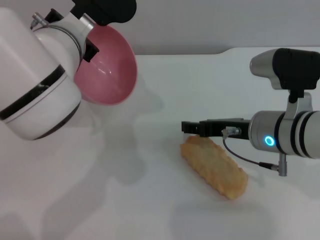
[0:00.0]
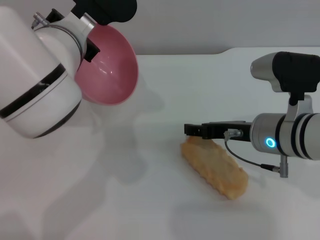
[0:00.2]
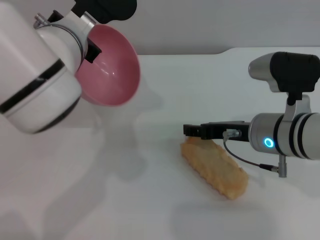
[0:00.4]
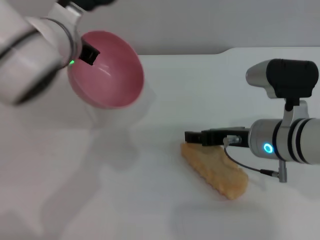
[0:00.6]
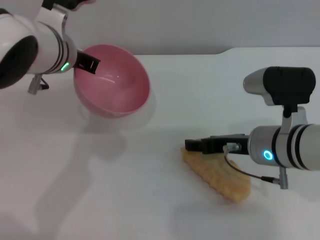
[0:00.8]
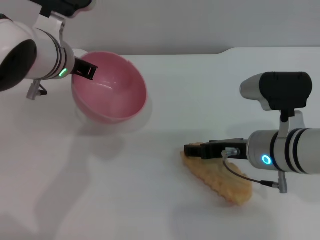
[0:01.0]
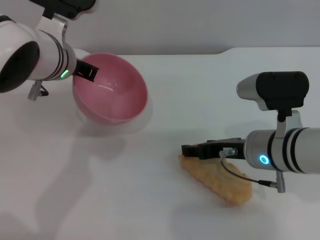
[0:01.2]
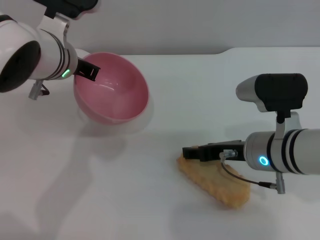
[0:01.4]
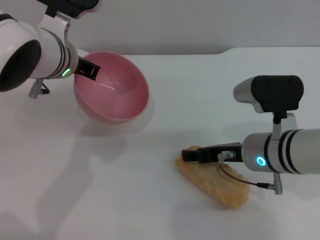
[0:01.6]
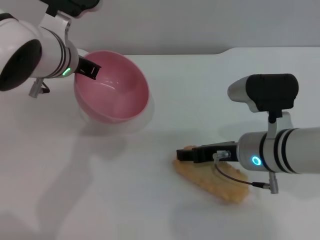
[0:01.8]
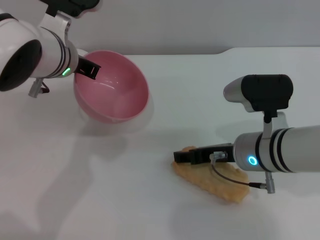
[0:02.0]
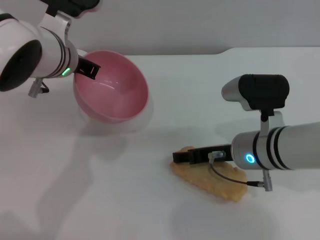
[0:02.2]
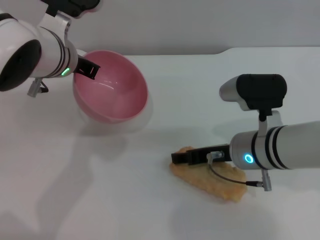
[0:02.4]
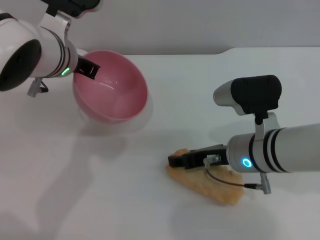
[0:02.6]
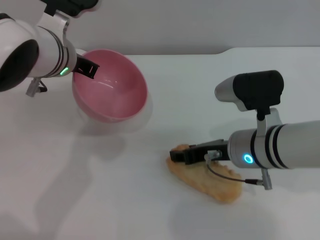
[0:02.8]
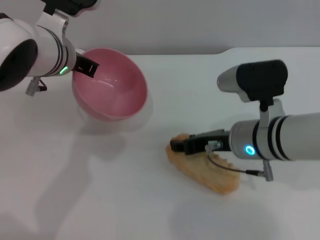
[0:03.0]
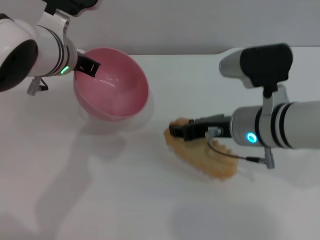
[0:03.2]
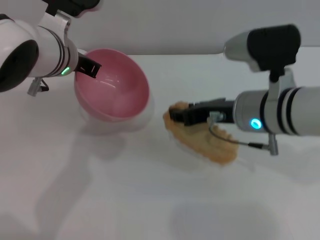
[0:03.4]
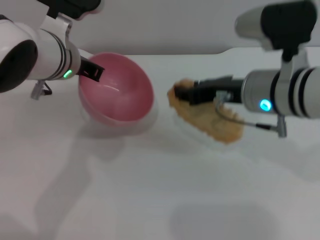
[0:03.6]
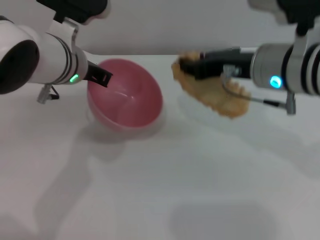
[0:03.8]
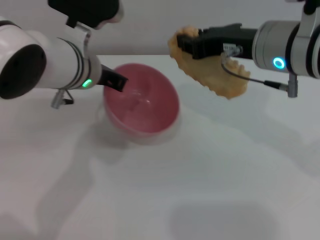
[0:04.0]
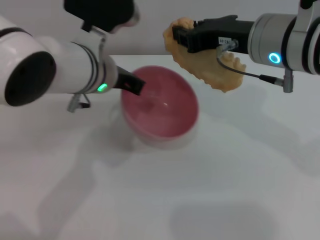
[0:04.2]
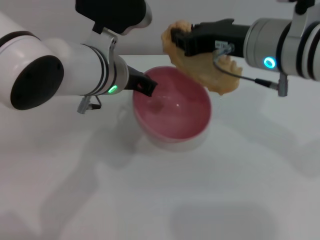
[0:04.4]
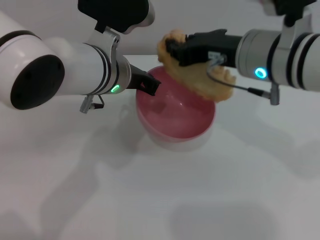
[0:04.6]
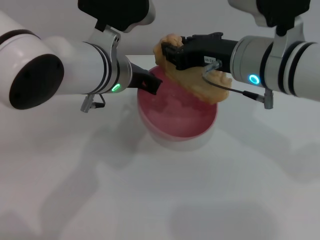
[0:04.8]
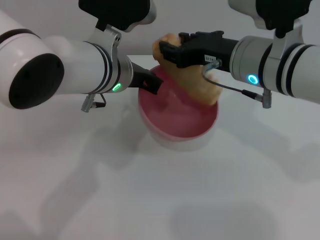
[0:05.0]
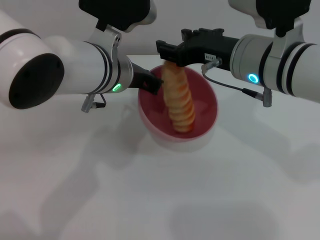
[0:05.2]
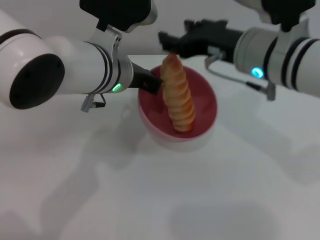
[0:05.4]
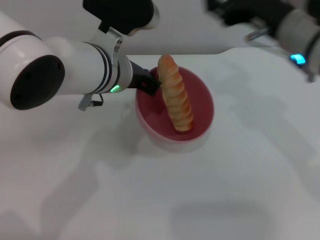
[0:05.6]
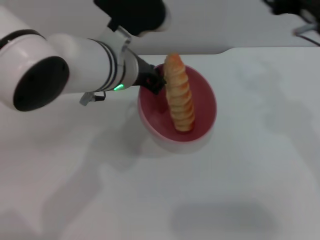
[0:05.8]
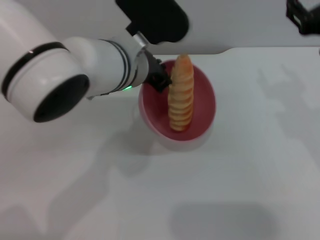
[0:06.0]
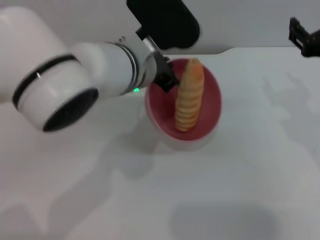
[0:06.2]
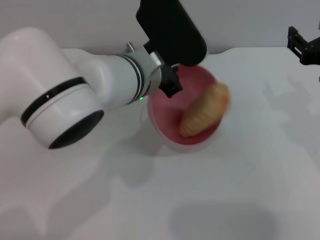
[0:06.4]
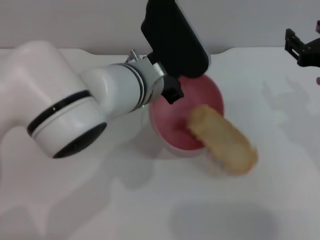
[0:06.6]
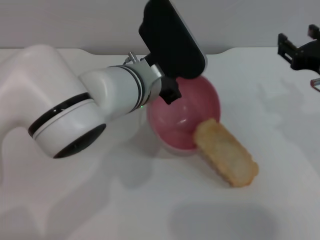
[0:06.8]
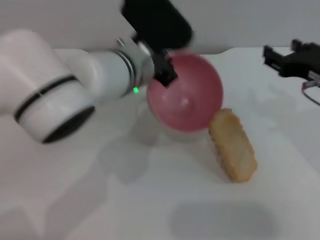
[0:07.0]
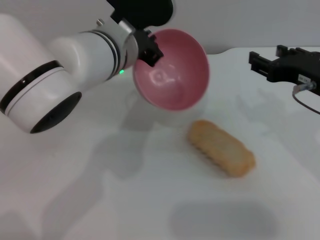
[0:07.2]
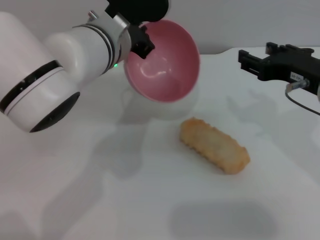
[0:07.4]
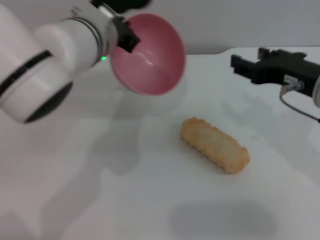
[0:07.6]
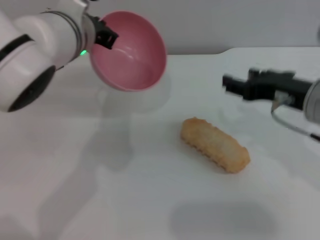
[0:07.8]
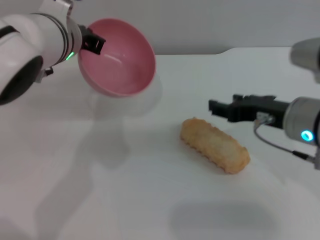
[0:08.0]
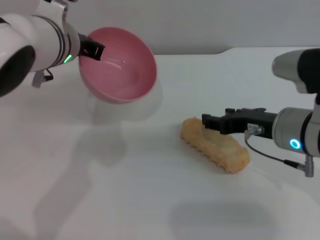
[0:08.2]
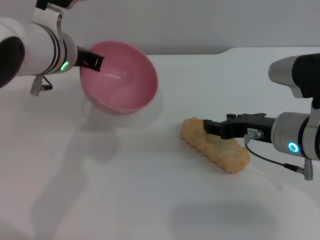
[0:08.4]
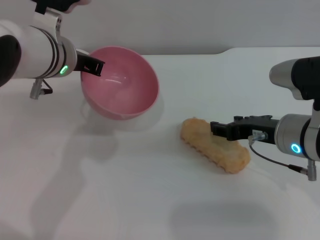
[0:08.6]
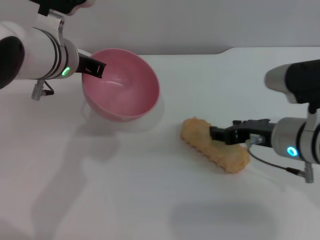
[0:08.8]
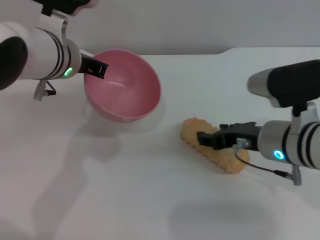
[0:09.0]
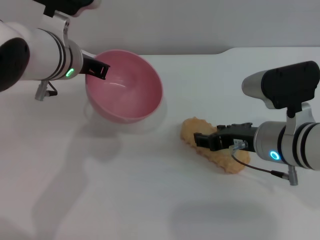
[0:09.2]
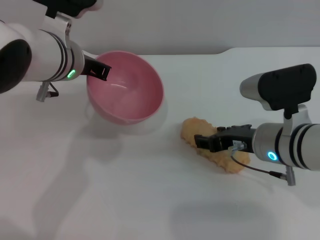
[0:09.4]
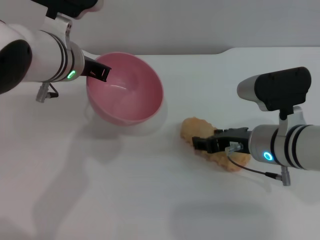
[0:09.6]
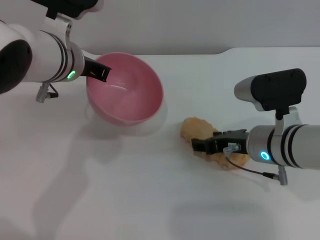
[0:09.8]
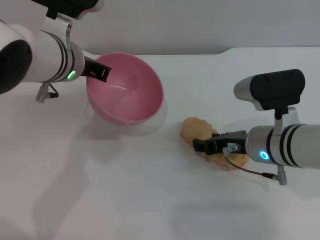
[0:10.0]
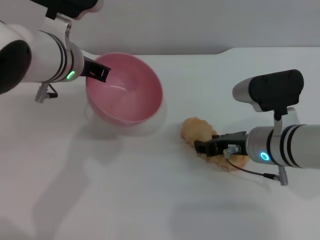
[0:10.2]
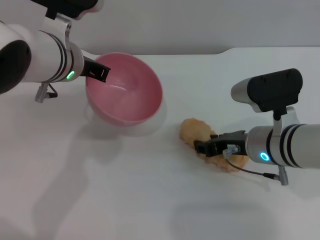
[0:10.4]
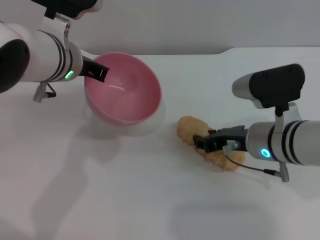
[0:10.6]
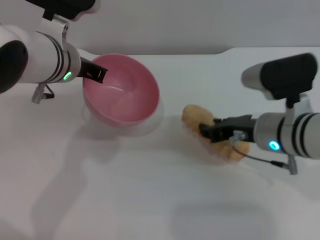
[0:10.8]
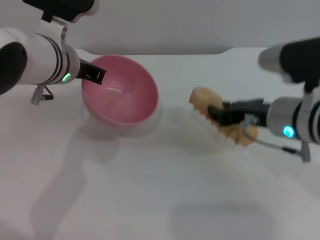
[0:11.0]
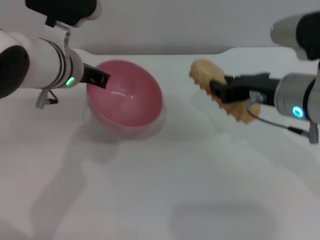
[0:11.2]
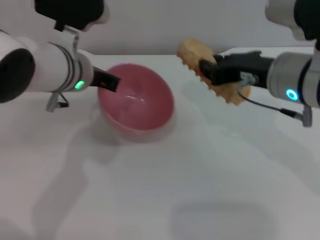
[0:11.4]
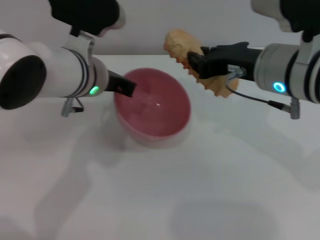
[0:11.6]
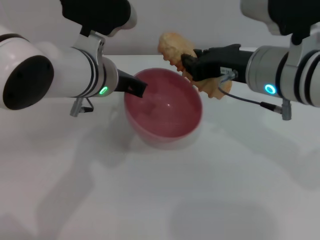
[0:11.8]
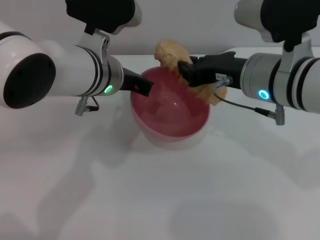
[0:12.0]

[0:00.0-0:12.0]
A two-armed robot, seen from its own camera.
Task of the whole recording: put the bread into the pink bowl and pour it out repeatedly.
Step, 0:00.0 to 0:03.6: Pick up the bread with the right gripper.
Step, 0:03.8 to 0:05.2: Place the bread into the bowl.
Step, 0:05.6 to 0:07.2: Pour the bread out of the bowl.
Step, 0:07.4 to 0:11.0: Pick up the bread with the right gripper.
0:01.6 to 0:03.0: The grippers stay close to where they were, moving slightly.
0:03.0 to 0:04.4: The right gripper is displaced upward by roughly 10 cm, and closes up, while the left gripper is displaced to the right by approximately 5 cm.
0:04.4 to 0:06.0: The right gripper heads to the right, covering some 10 cm, and opens up.
0:07.6 to 0:09.0: The right gripper travels downward by some 10 cm.
0:09.0 to 0:10.4: There are only small adjustments of the grippers.
0:10.4 to 0:12.0: The right gripper goes some 10 cm upward, and closes its fingers.

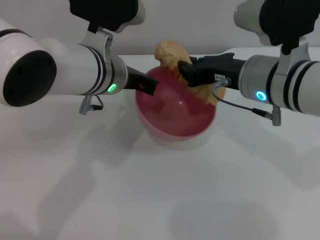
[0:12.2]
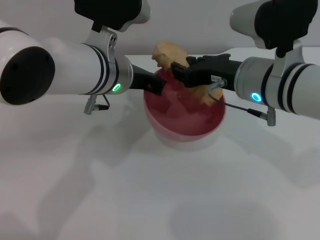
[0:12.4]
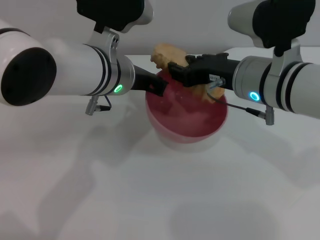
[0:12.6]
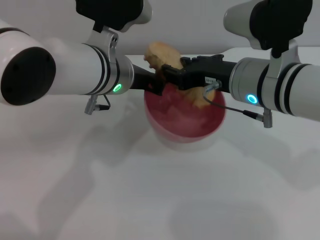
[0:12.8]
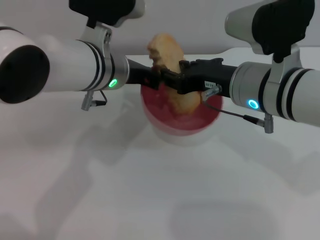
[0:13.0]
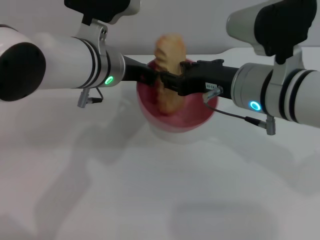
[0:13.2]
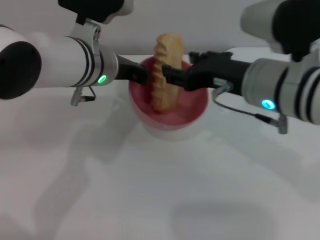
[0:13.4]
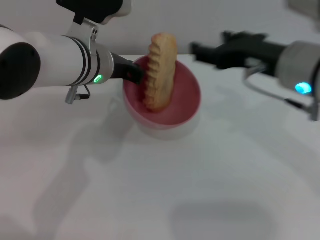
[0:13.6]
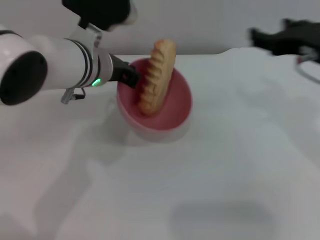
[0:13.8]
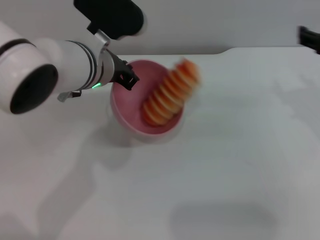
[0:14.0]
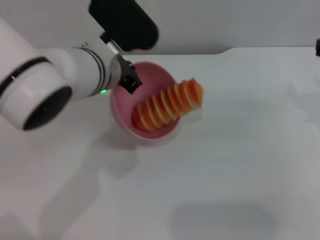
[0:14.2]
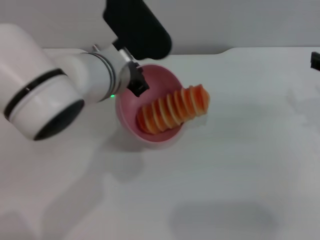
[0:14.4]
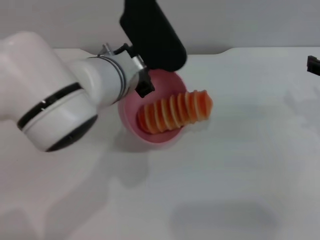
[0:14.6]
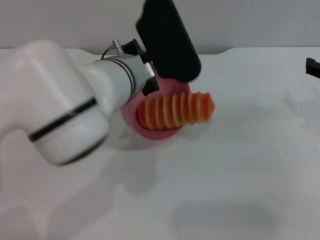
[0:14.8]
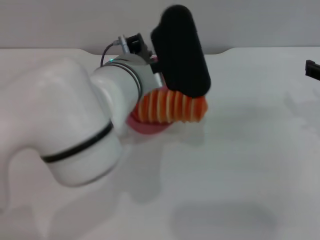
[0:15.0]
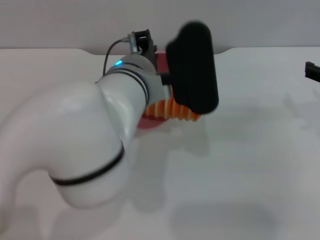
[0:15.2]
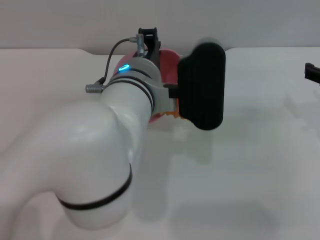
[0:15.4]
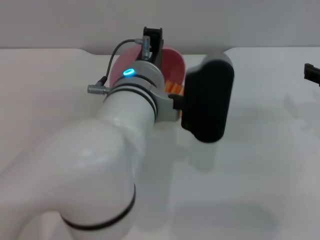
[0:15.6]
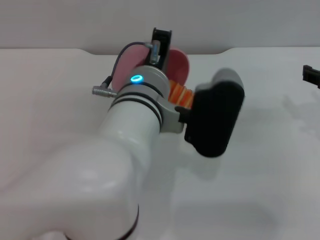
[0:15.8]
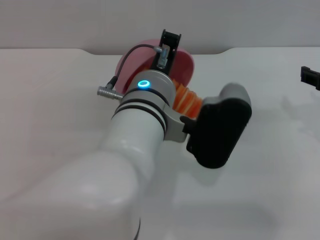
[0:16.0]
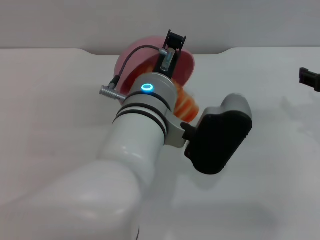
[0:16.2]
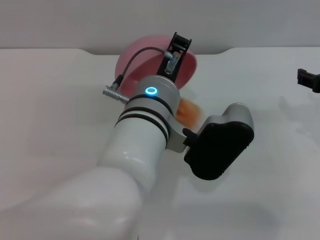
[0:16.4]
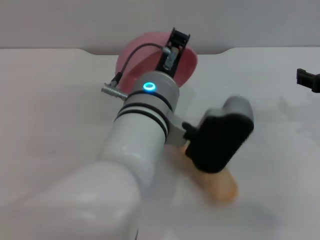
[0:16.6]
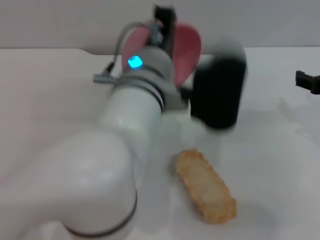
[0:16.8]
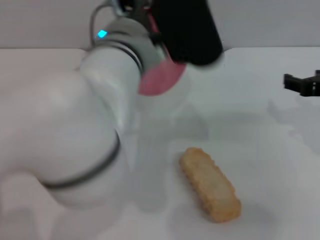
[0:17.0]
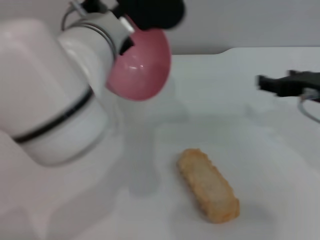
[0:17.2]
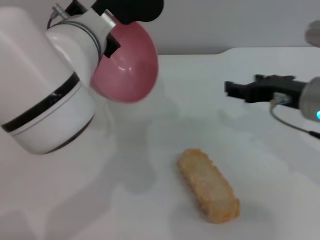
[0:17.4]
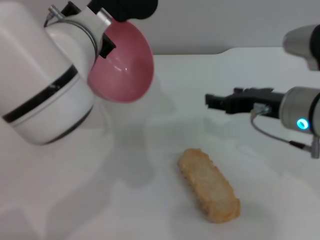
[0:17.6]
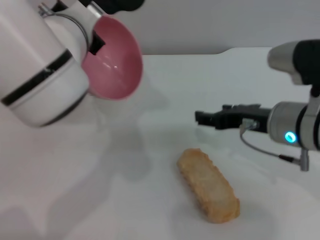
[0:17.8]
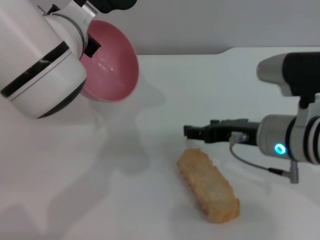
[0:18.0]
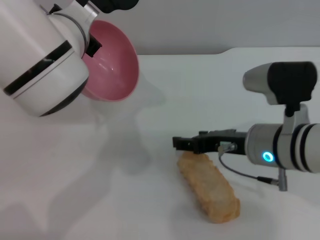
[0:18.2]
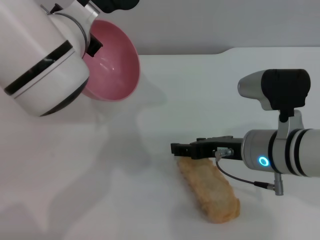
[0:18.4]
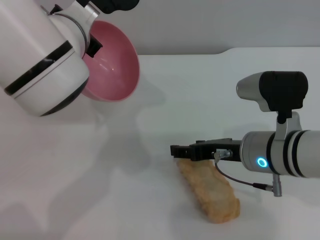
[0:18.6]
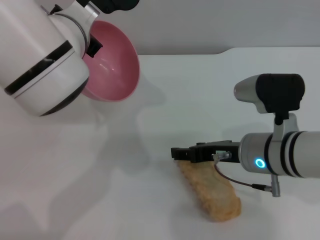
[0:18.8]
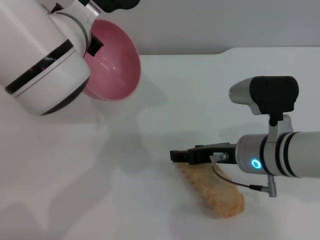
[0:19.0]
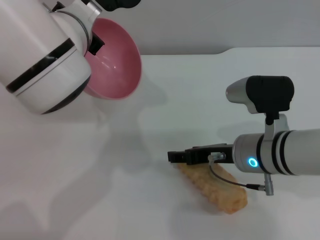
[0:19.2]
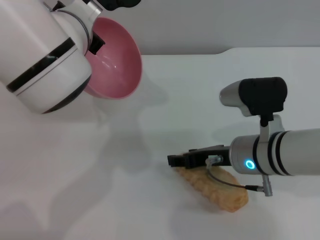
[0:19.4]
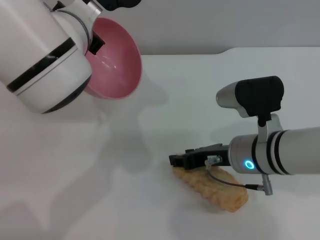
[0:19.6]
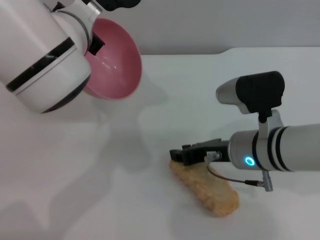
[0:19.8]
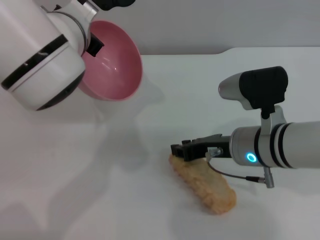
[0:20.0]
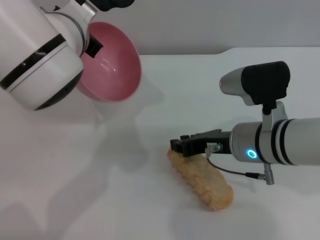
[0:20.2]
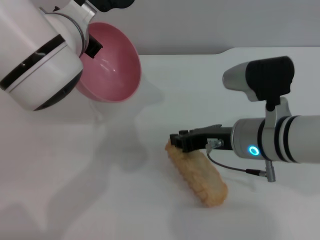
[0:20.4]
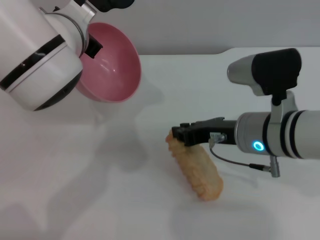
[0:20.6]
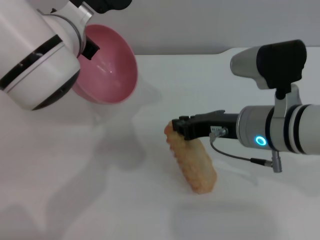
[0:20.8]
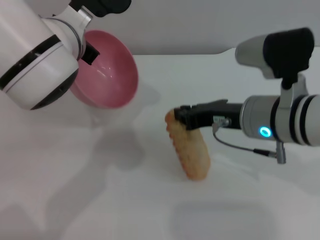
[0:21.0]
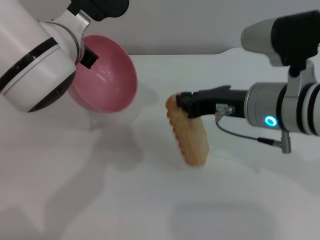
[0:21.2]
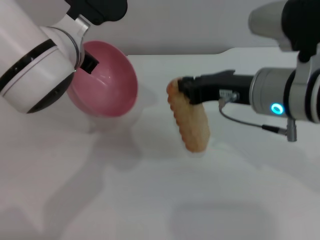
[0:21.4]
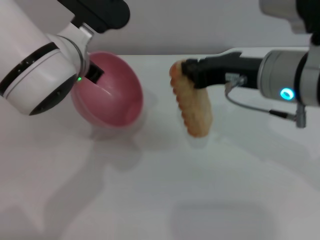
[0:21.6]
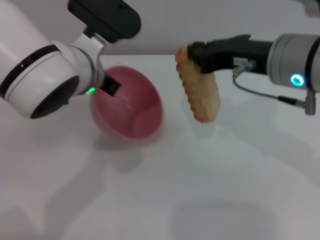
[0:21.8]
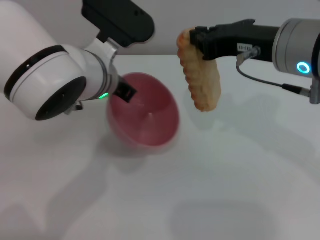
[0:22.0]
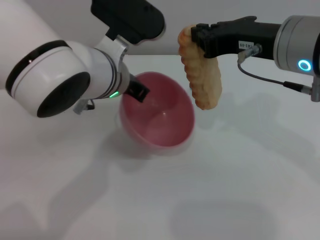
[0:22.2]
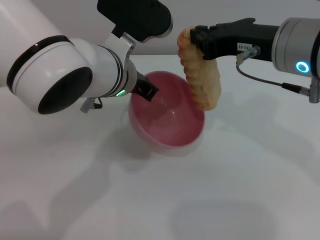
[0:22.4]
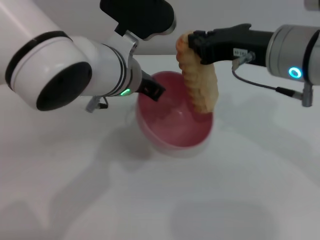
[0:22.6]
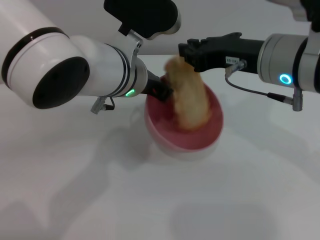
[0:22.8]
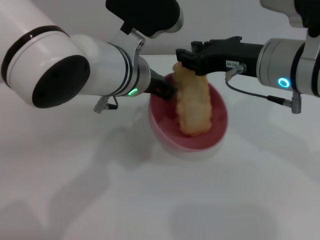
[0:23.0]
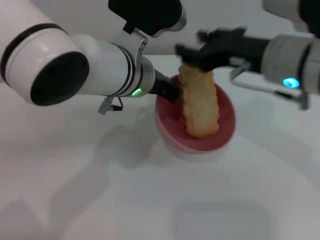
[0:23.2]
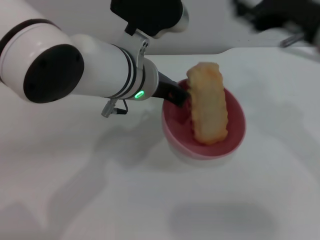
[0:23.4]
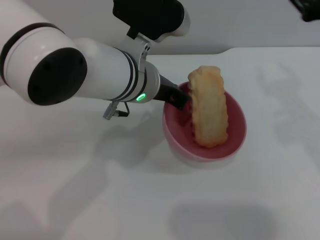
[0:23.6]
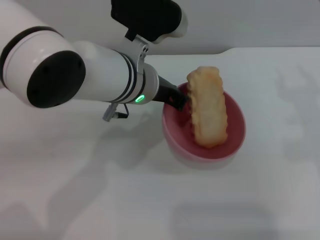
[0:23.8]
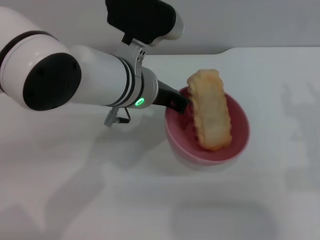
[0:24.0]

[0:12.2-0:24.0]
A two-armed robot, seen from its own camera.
Task of the whole recording: put the bread into the pink bowl and pour it out repeatedly.
Step, 0:12.2 to 0:13.4: Place the bread into the bowl.
Step, 0:13.6 to 0:16.6: Pour the bread out of the bowl.
Step, 0:16.8 to 0:21.6: Pick up the bread with the right gripper.
Step, 0:21.8 to 0:23.2: Place the bread into the bowl.
0:12.2 to 0:13.6: The right gripper changes place by approximately 5 cm, and opens up.
0:13.6 to 0:15.2: The right gripper travels to the right and downward by about 15 cm, while the left gripper goes roughly 10 cm to the right and backward.
0:16.6 to 0:18.2: The left gripper heads to the left, forward and upward, covering approximately 15 cm; the right gripper goes roughly 15 cm to the left.
0:18.2 to 0:19.6: There are only small adjustments of the grippers.
0:19.6 to 0:21.0: The right gripper goes about 5 cm upward, and closes.
0:21.0 to 0:22.6: The left gripper ends up about 5 cm from where it was. The right gripper goes some 10 cm upward.
0:22.6 to 0:24.0: The right gripper travels to the right, downward and backward by about 15 cm, and opens its fingers.
